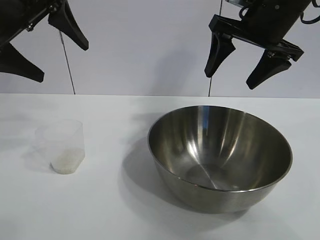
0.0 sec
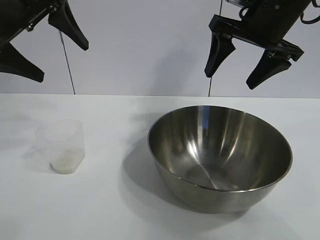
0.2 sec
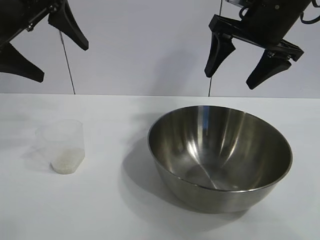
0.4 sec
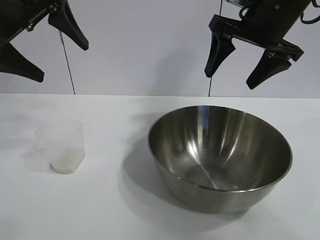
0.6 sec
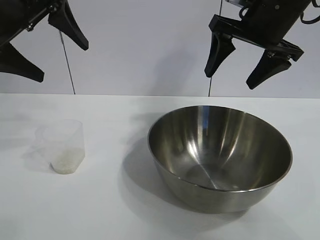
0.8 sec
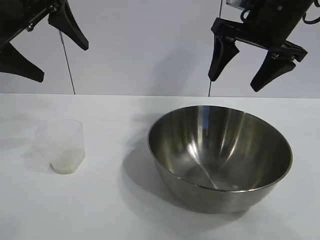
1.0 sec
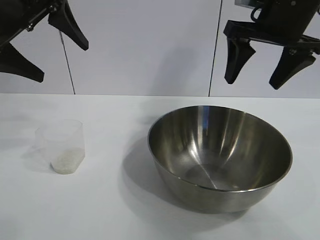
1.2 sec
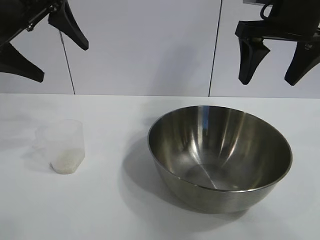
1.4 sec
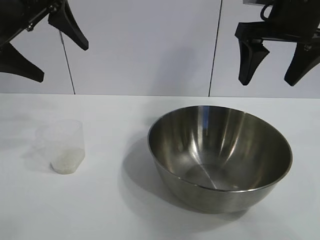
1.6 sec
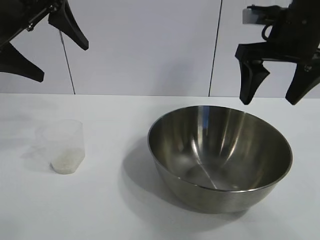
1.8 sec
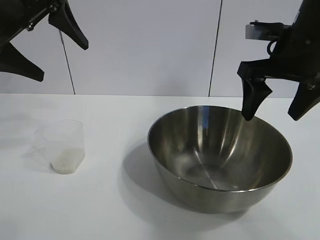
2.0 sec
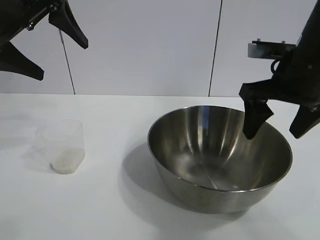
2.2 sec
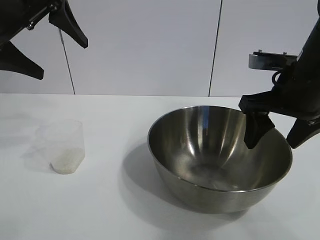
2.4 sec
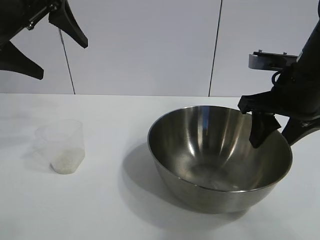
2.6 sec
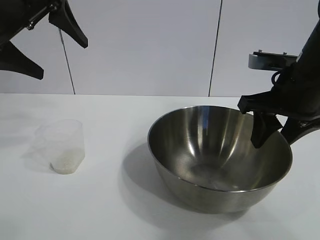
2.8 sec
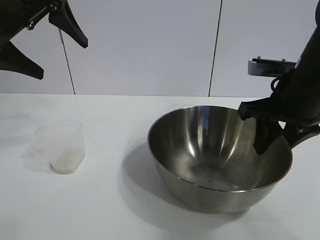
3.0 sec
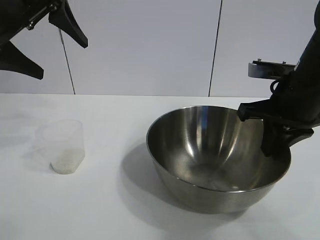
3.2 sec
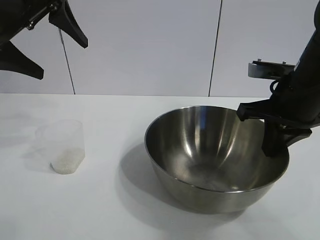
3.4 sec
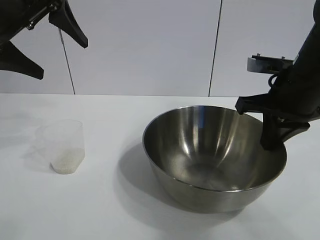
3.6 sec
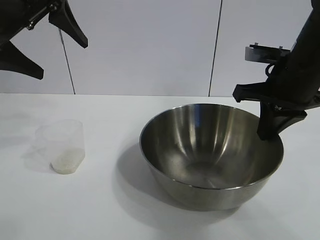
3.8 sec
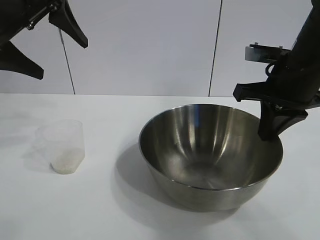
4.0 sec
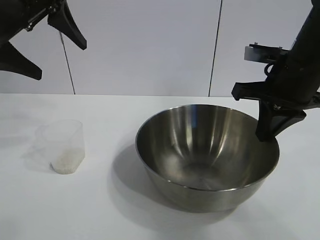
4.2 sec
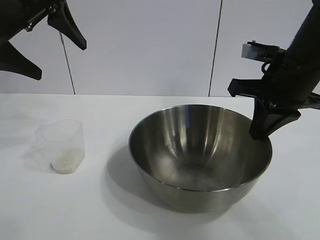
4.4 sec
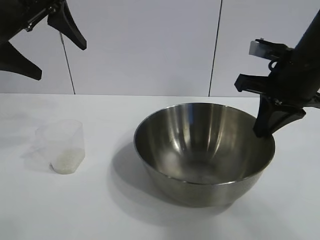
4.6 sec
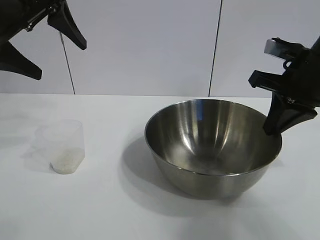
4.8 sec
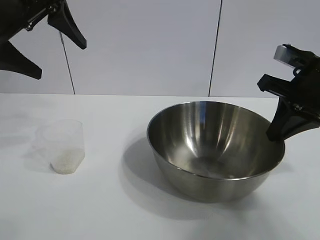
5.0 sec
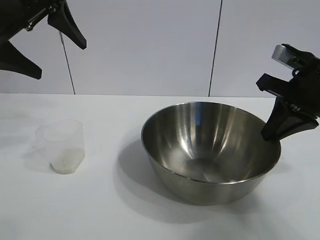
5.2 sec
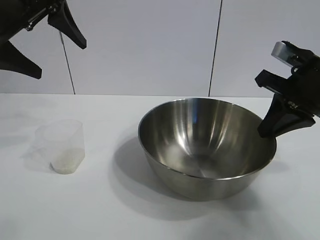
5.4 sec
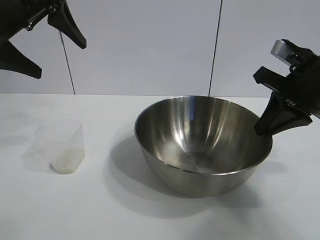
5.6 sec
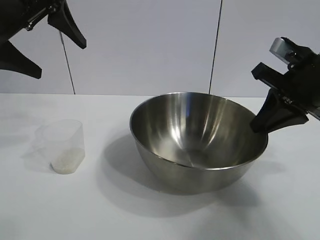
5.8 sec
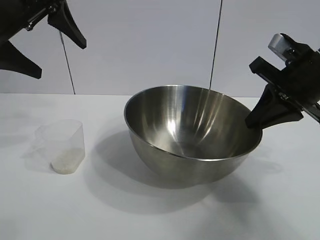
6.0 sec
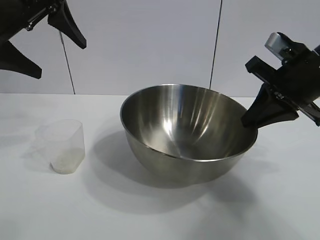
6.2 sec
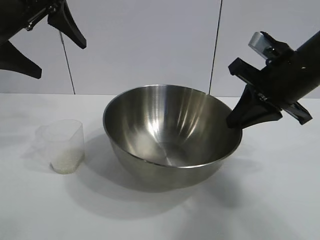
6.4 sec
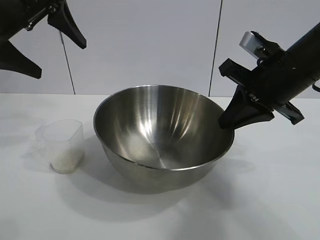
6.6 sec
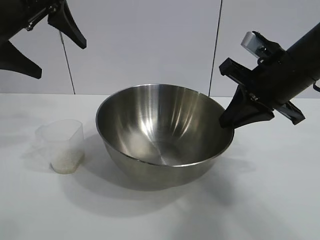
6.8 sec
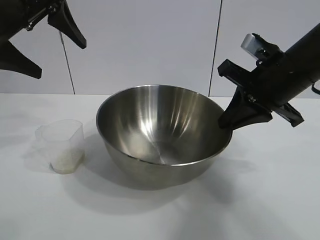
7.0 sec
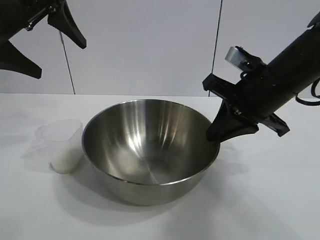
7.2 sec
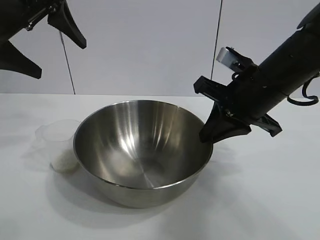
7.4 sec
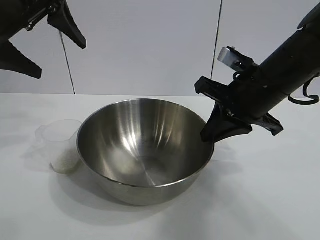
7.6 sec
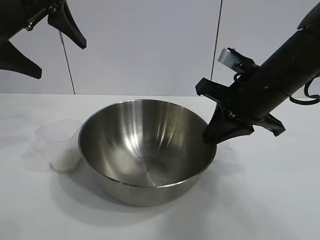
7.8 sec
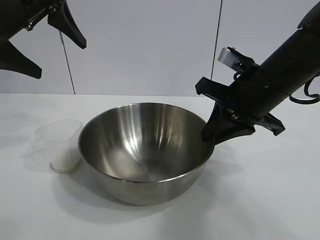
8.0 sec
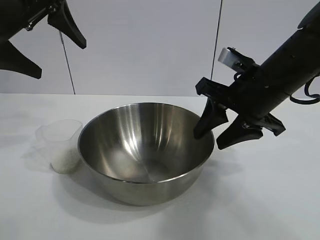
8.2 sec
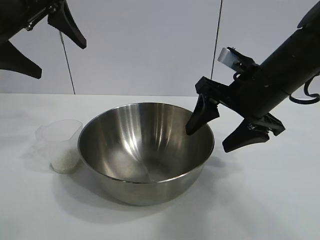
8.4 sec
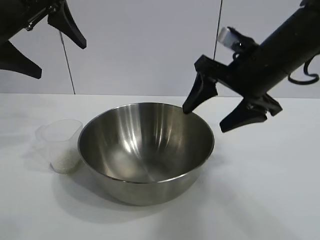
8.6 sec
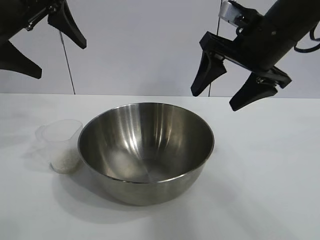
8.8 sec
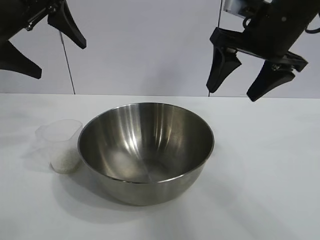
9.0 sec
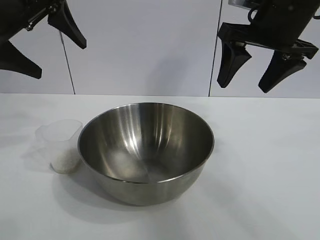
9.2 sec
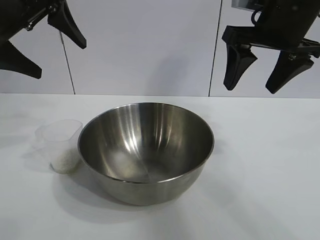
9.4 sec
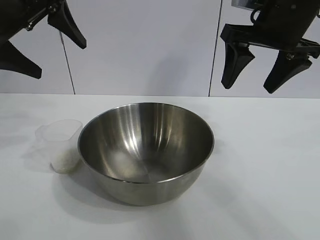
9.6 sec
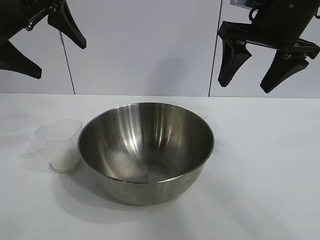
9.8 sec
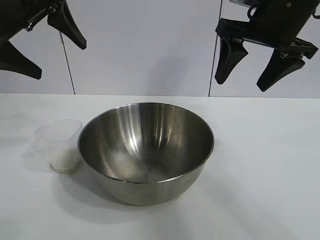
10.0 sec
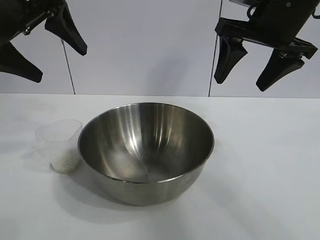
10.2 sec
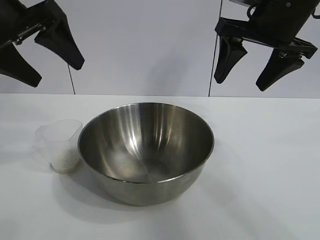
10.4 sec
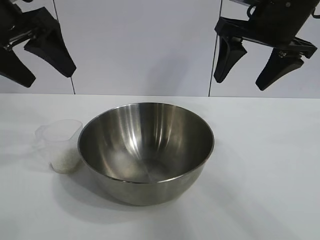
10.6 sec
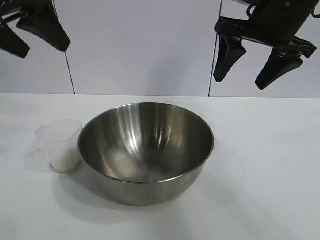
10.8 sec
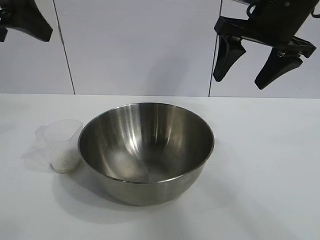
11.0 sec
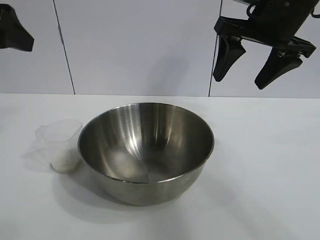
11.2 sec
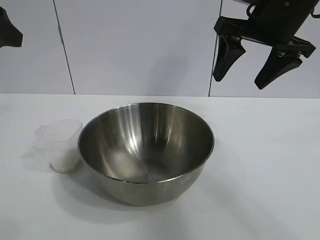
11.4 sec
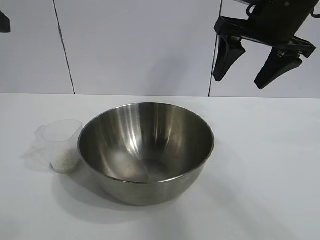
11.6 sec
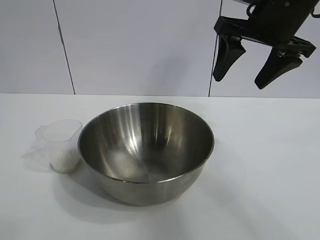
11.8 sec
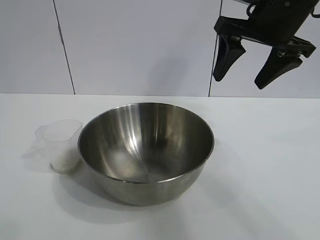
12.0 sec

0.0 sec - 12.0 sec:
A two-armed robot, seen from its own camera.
Task of the whole recording: the right gripper grasp the rice container and place it in the center of the table, the left gripper grasp the rice scoop and pour the rice into the rice container.
Step, 1.0 sec - 8.4 sec: Move the bowl in the center of view with right gripper.

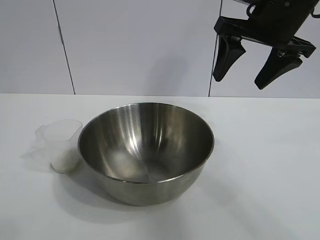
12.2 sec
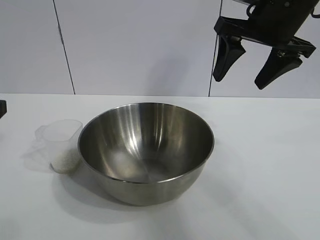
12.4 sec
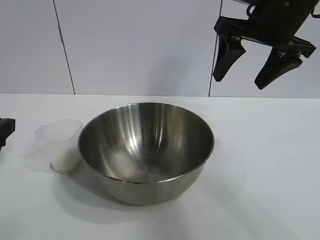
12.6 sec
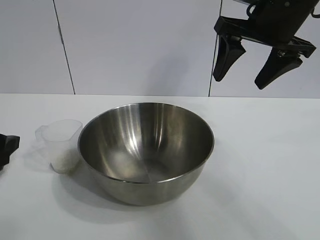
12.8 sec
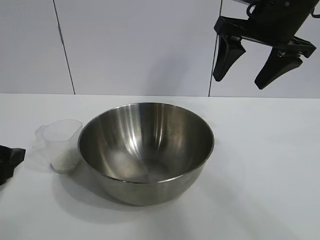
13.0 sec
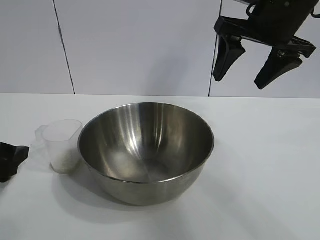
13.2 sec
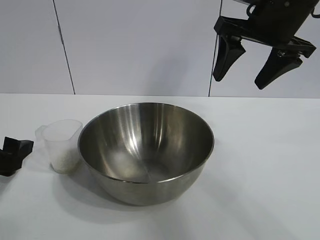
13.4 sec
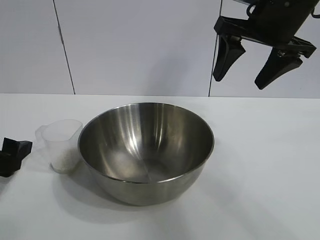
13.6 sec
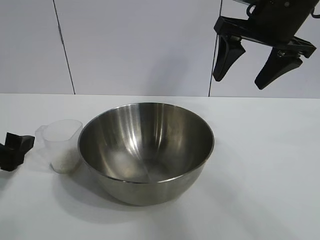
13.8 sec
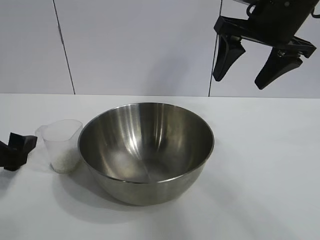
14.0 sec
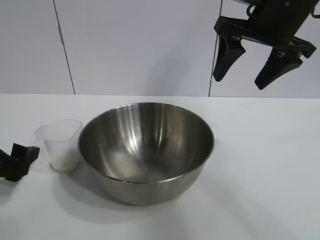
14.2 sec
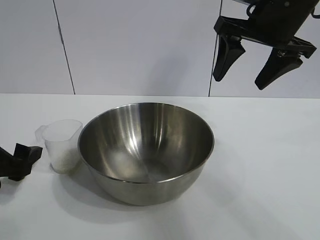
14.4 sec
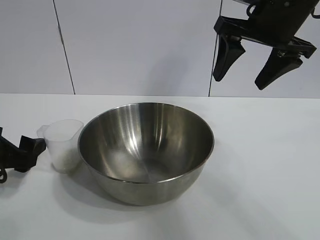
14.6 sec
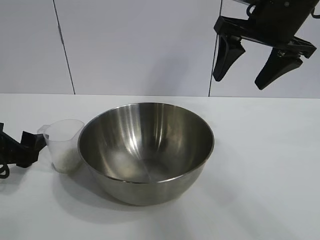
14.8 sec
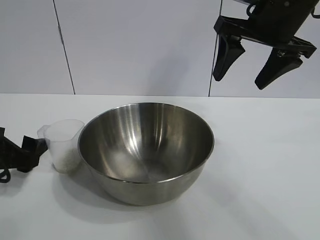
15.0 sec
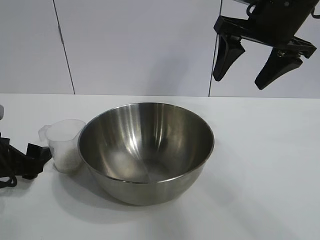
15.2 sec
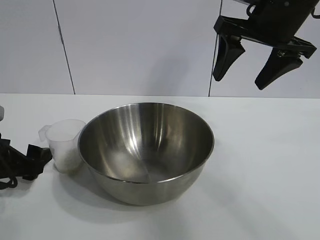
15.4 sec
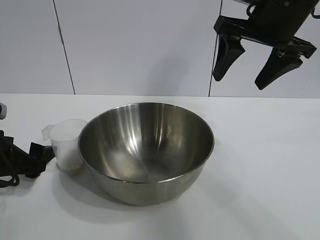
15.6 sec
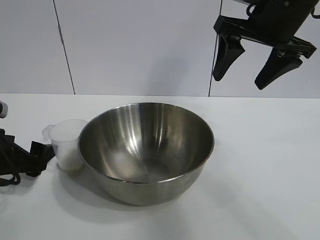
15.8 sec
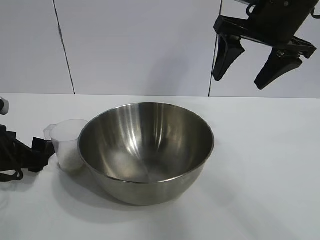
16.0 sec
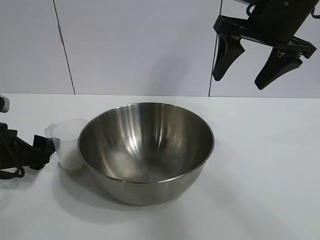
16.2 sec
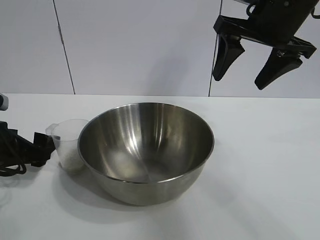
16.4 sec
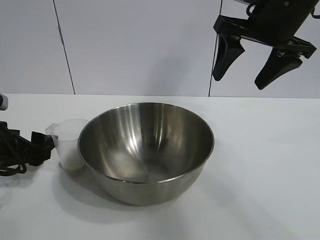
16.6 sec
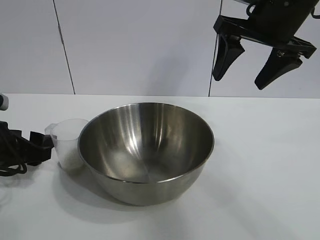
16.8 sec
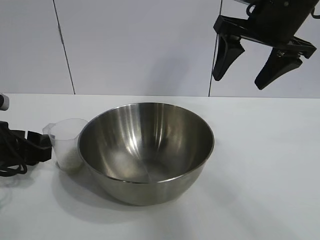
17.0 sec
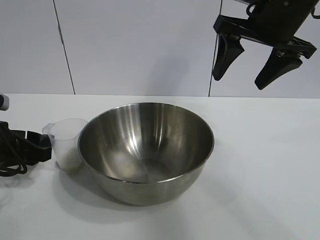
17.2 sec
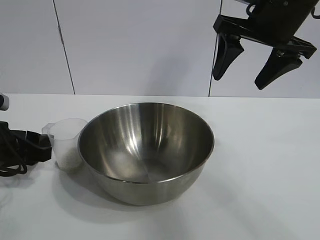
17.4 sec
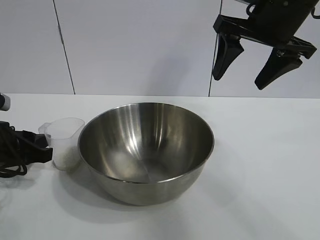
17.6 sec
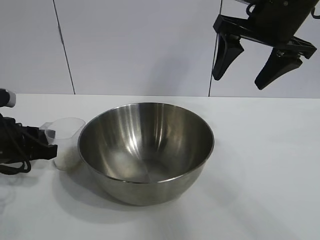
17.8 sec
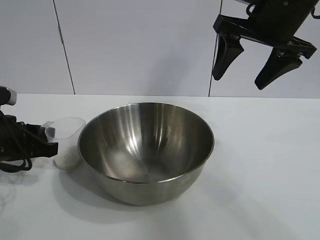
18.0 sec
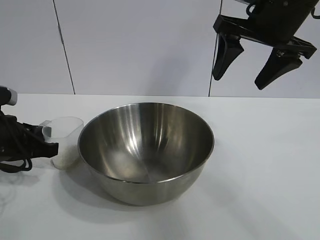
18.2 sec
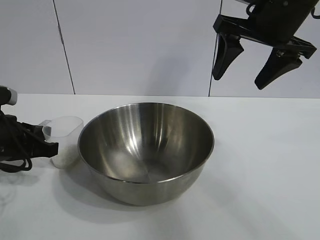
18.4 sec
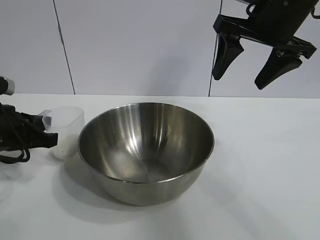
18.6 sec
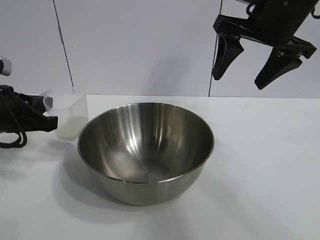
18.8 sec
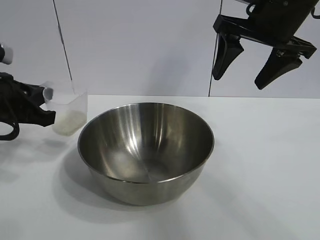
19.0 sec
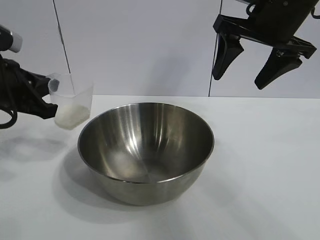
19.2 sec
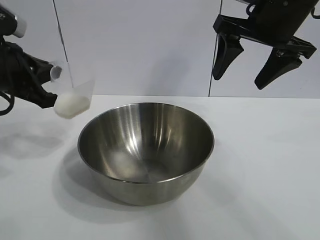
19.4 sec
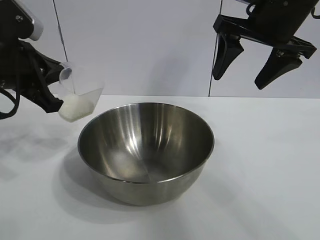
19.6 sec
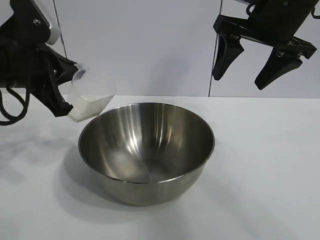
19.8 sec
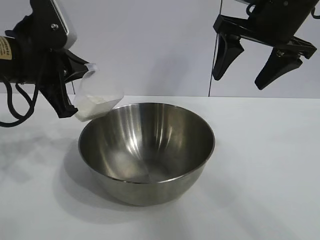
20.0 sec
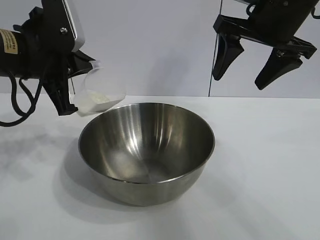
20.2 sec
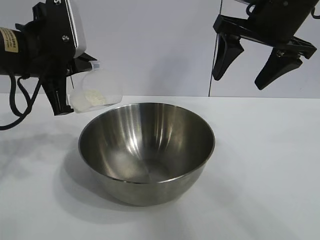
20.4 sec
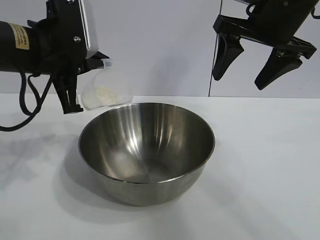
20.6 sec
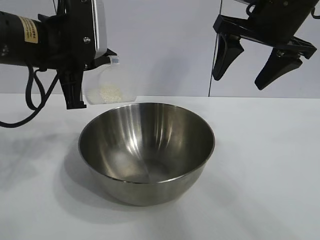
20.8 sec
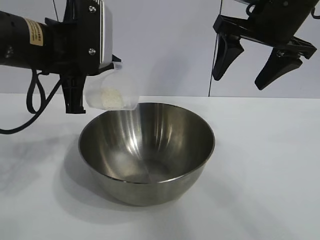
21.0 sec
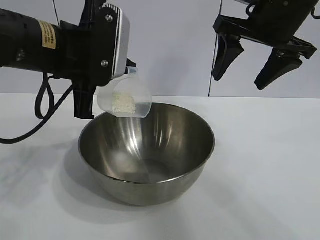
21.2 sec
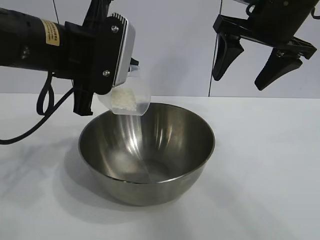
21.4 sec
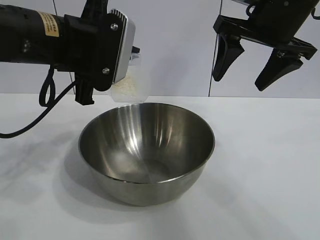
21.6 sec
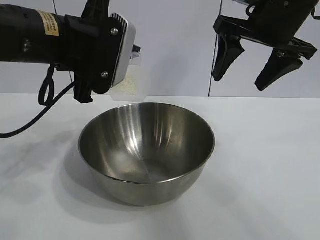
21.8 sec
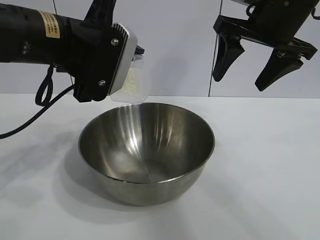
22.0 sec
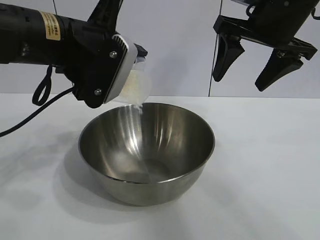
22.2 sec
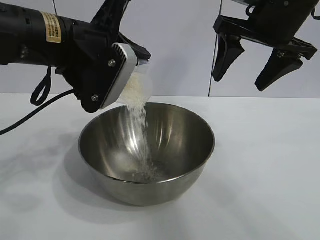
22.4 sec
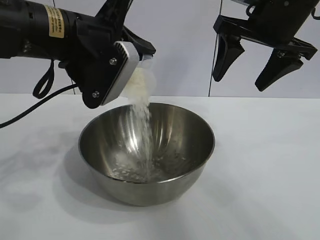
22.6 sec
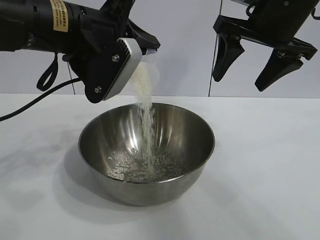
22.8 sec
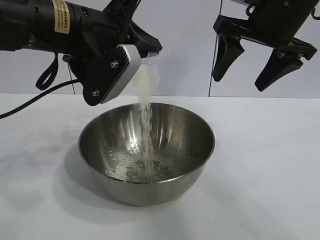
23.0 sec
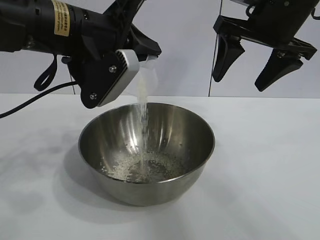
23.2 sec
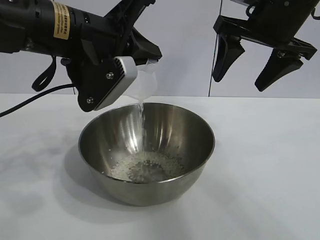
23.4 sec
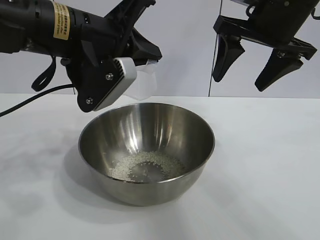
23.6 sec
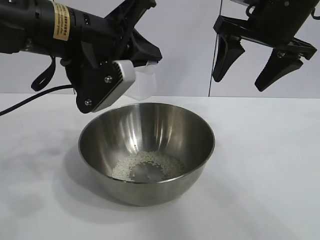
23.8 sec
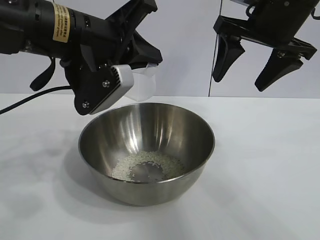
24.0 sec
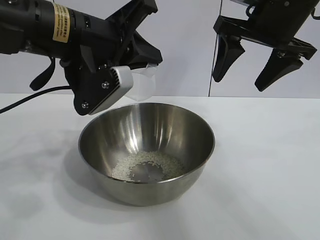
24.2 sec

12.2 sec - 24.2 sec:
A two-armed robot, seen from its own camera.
Task of the whole recording: the right gripper grasp the rice container and place it in the center of the table, the left gripper grasp the rice scoop and pour the rice into the rice container.
Step, 12.2 sec - 18.4 sec: Grasp the cup with rice in it with left gripper.
Step, 18.6 sec - 23.6 sec: Pour the rice from the cup into the bowl with the left gripper.
